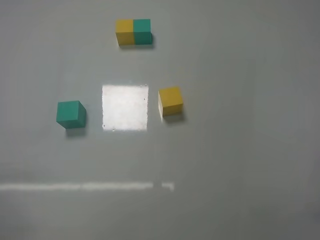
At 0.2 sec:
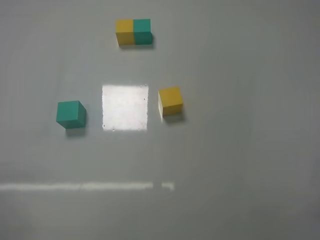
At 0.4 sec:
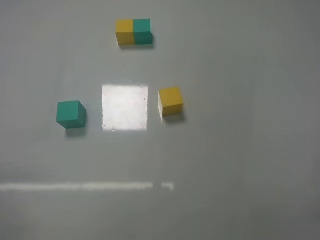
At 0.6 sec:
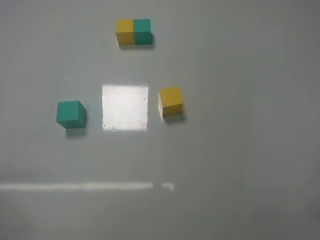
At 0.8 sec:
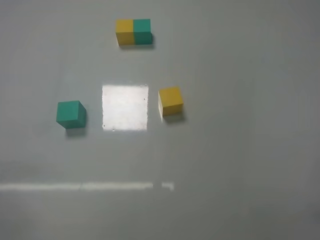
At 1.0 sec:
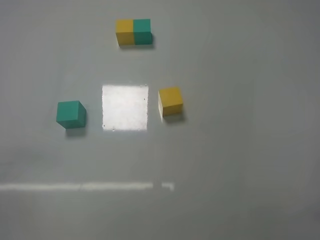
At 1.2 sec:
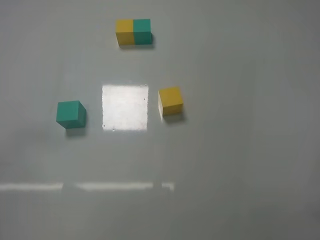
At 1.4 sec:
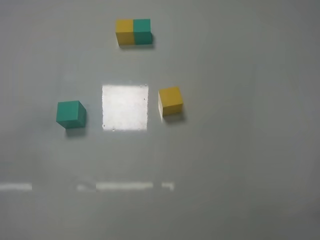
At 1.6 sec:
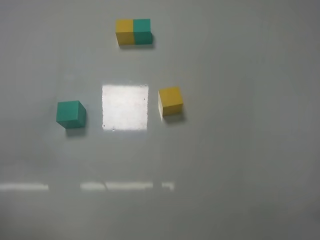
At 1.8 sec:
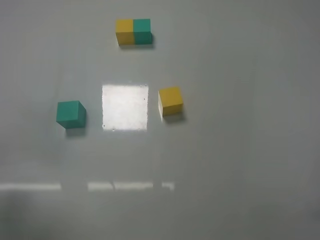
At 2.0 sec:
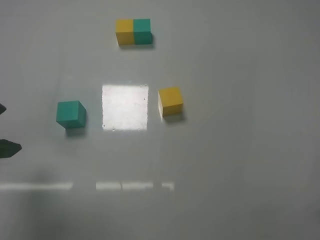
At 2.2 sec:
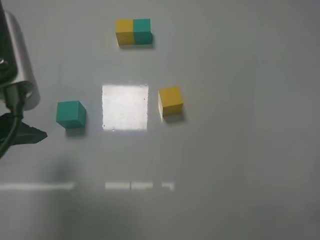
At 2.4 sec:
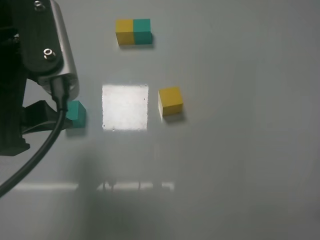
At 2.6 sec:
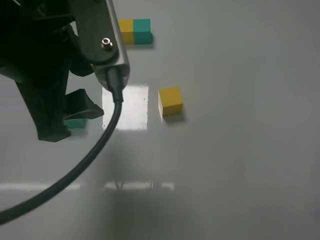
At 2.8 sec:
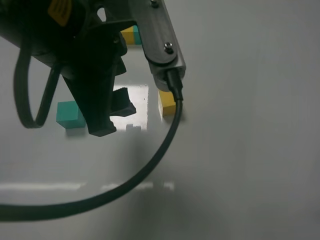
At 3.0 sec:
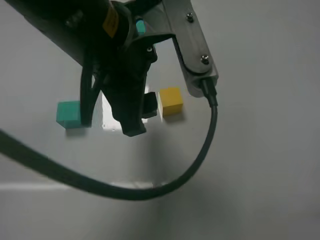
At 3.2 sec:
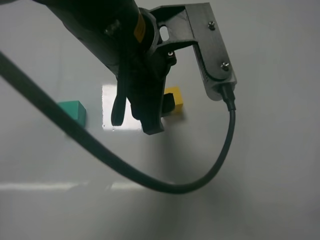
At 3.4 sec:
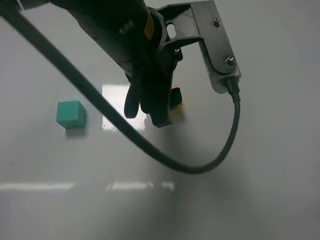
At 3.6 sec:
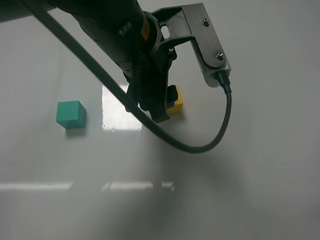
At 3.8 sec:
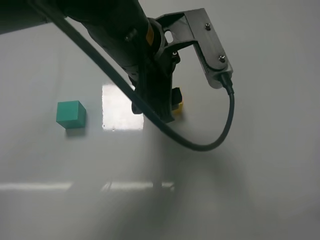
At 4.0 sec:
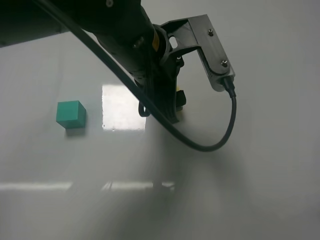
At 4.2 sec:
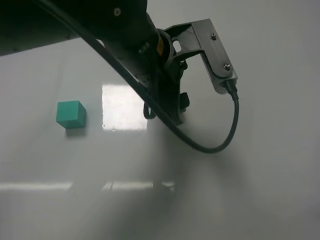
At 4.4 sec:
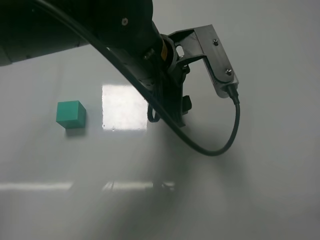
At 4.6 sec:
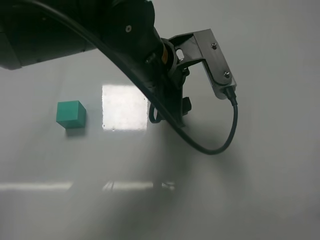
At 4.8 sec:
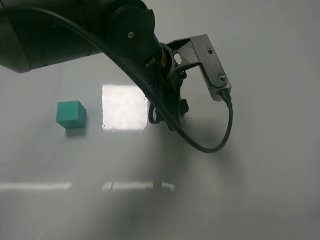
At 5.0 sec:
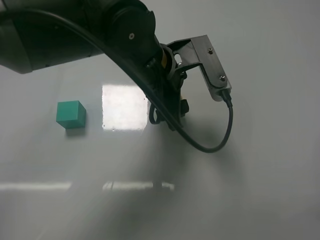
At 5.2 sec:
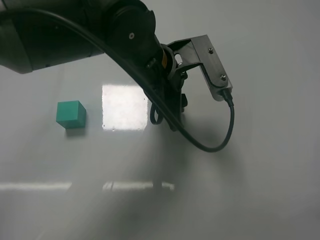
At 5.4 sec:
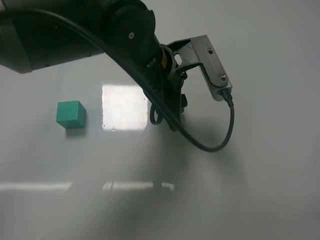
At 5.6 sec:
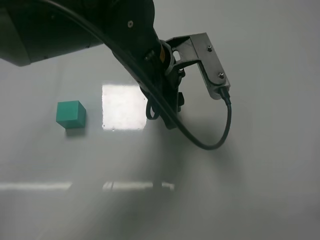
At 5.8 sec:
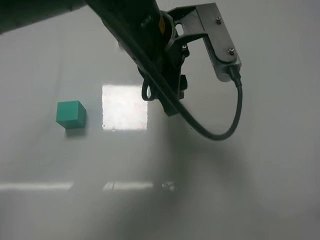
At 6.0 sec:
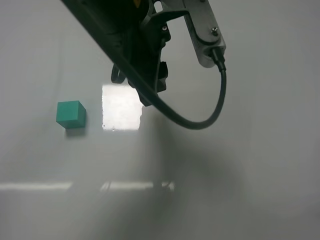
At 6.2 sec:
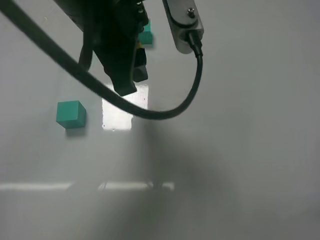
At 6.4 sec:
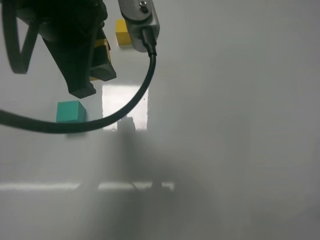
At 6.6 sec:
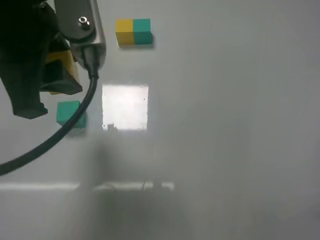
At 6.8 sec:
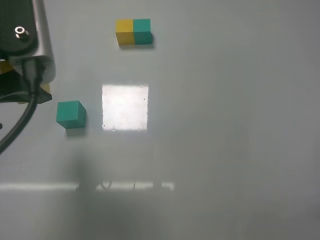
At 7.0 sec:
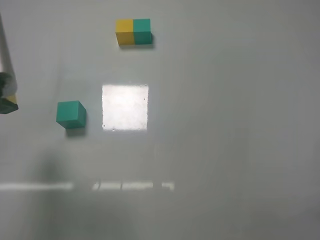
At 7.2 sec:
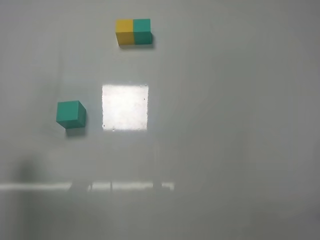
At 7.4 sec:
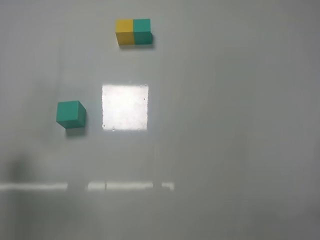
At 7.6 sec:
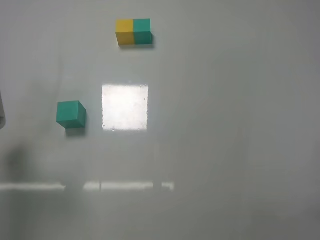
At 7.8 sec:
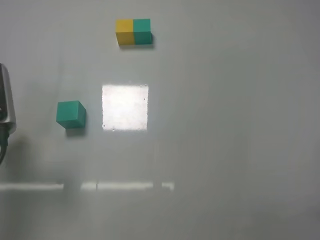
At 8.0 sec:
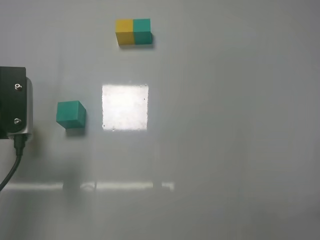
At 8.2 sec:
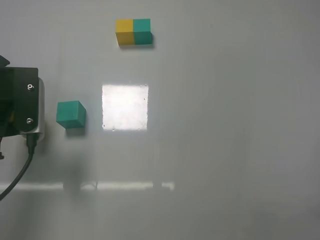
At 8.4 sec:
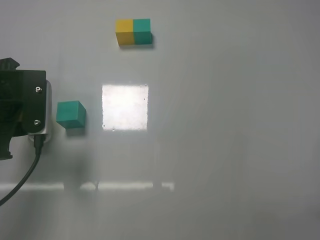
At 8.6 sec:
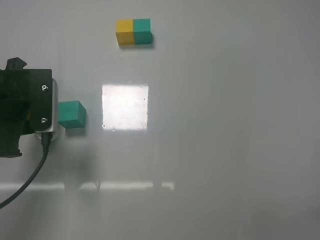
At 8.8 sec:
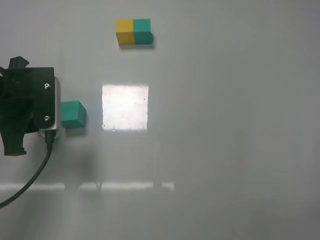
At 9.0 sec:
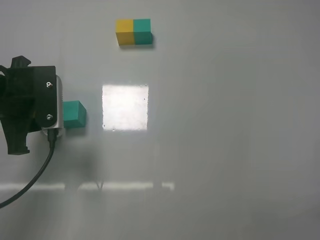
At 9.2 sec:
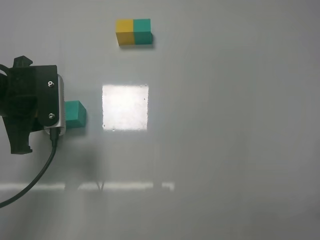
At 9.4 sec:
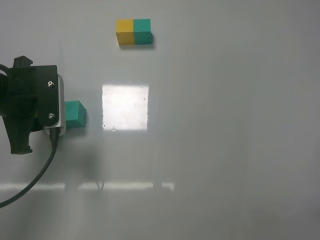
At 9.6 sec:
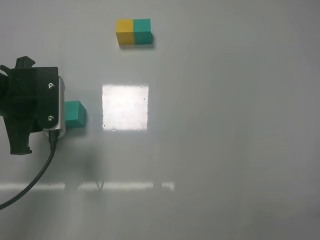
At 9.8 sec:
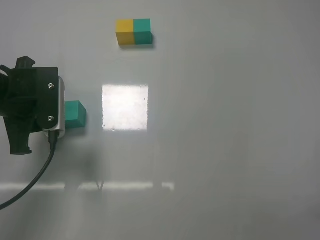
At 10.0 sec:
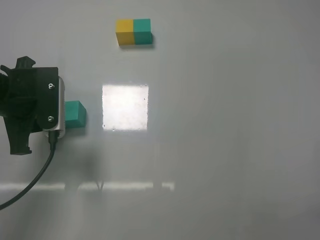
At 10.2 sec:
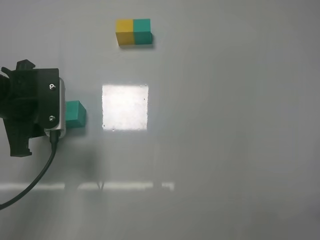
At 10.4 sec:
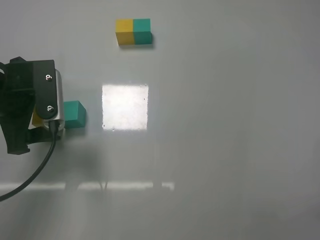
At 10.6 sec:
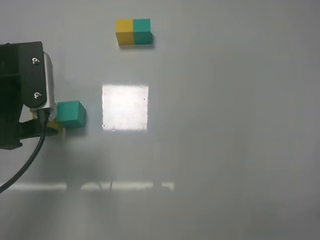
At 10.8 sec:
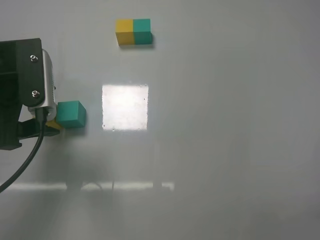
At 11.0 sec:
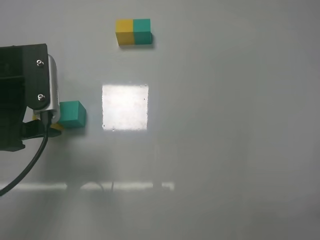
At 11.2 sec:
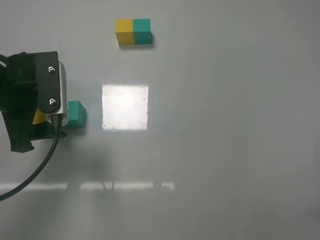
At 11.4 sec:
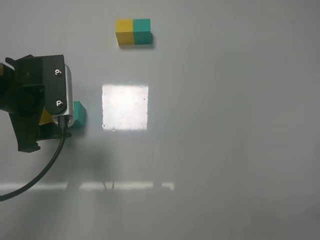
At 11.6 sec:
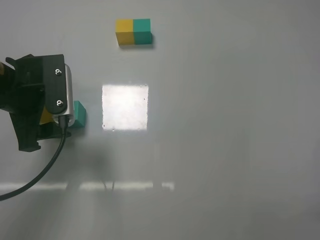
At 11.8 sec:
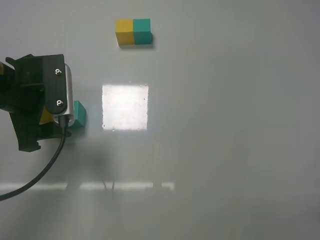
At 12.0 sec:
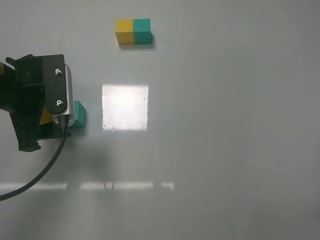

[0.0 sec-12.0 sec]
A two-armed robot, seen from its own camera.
Task of the whole recording: According to the building block template in front, assemble the scattered blocks together.
Step, 0.0 sec to 5.2 sec: Grasp the yellow block with left gripper.
Step, 5.4 sec to 10.2 sec: Put the yellow cube on the left of the green cube with the left gripper.
1.6 sec to 3.0 sec: The left gripper moves to the right and forward, approximately 25 cm.
3.0 sec to 4.4 sec: The left gripper shifts about 5 cm forward.
4.4 sec to 6.0 sec: The left gripper moves upward, about 5 cm, and closes up.
6.0 sec to 7.6 sec: The left gripper moves to the left, approximately 20 cm.
7.6 sec to 9.0 sec: The left gripper goes about 5 cm forward.
9.0 sec to 10.4 sec: The left gripper opens its fingers.
10.4 sec to 12.0 sec: The grippers stay close to where they were, moving slightly.

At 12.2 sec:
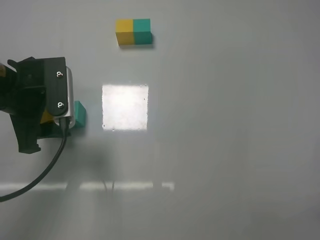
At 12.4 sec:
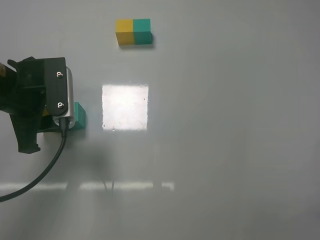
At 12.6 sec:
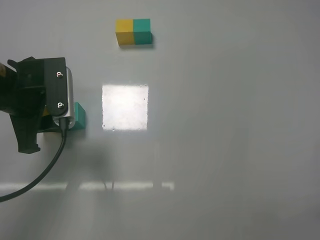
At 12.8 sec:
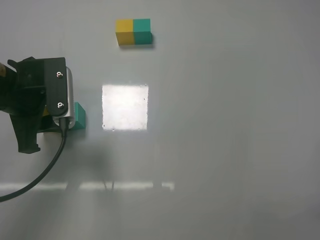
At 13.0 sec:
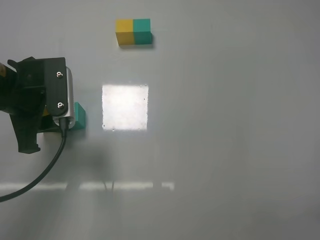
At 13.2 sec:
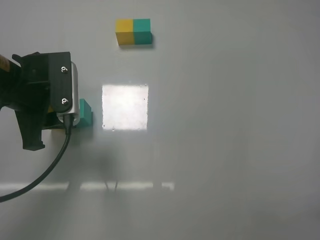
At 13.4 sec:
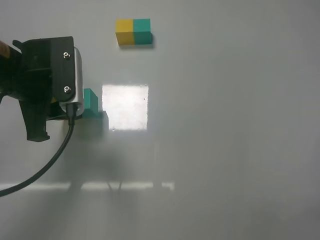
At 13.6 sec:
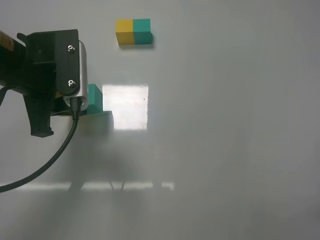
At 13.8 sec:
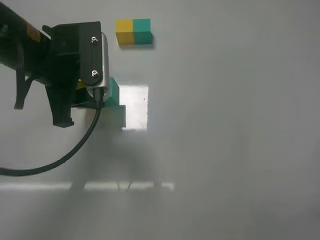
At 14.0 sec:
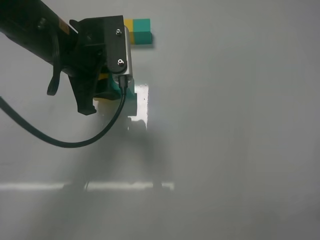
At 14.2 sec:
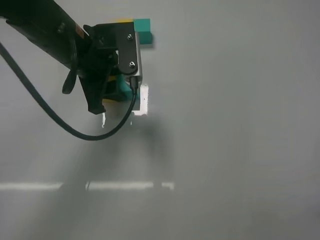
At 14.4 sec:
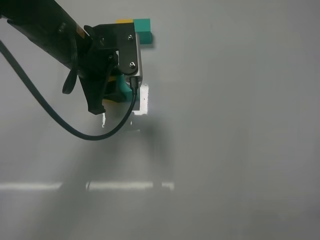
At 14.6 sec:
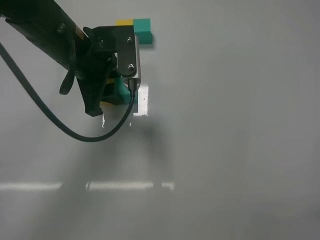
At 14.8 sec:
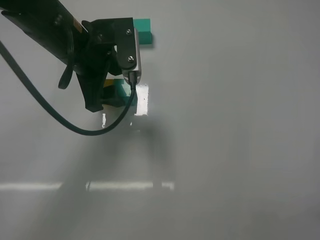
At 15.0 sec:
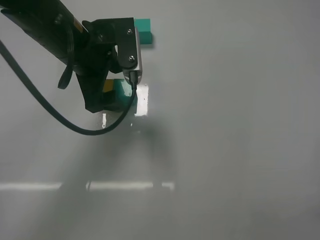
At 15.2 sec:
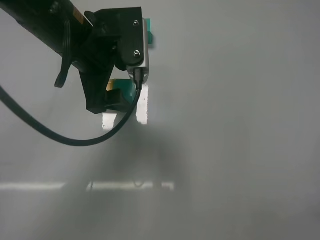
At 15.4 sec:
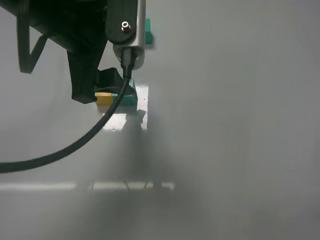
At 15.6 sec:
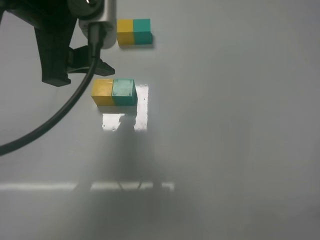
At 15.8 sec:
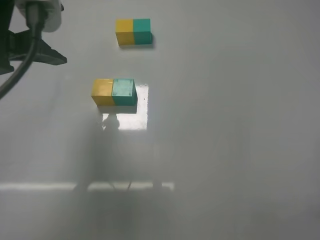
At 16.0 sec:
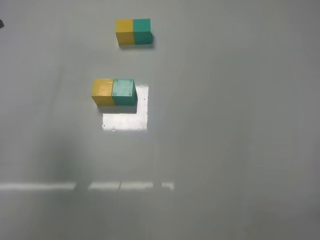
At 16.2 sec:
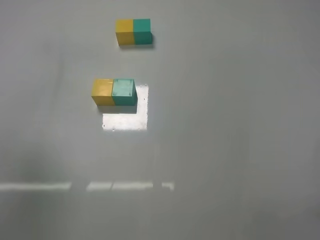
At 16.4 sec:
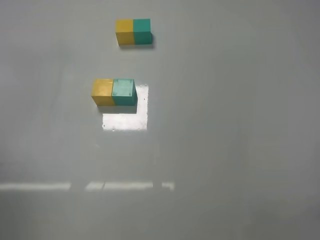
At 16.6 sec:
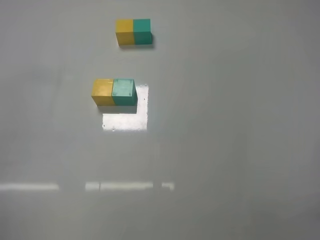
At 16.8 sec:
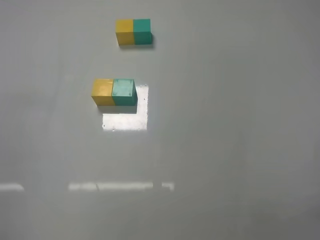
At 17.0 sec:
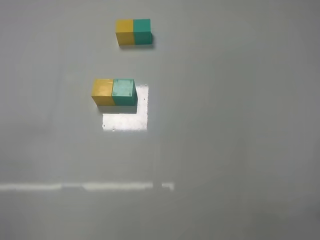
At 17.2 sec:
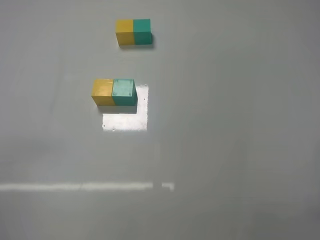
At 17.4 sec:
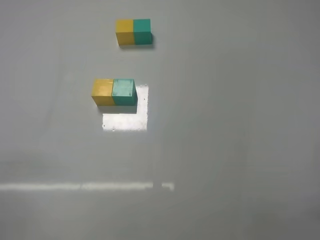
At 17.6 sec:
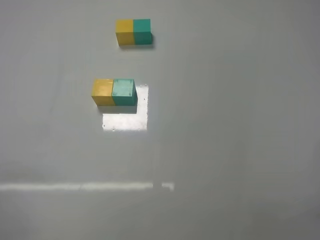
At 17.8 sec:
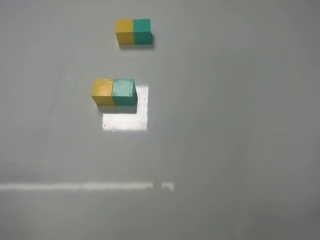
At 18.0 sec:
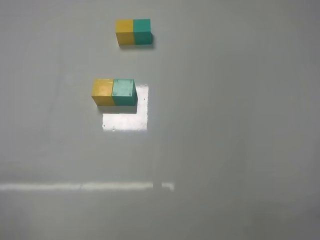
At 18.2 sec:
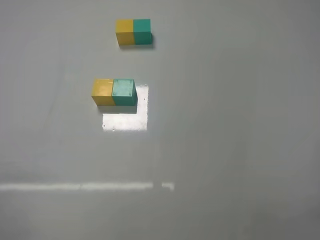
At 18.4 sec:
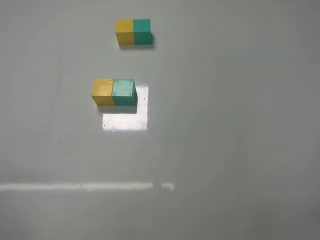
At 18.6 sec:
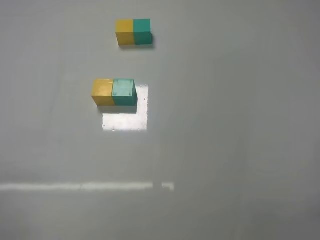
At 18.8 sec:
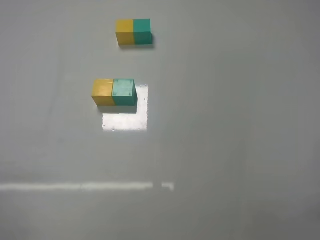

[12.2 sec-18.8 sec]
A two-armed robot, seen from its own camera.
Task of the whole recording: According to the building block template in front, assemble the scattered blocks together.
Step, 12.2 sec to 14.8 sec: Put the yellow cube and green cube in the center of the table with the left gripper.
12.2 sec to 13.8 sec: The left gripper travels to the right by approximately 5 cm, and closes.
13.8 sec to 15.4 sec: The left gripper shifts about 5 cm upward, and opens up.
15.4 sec to 17.2 sec: The left gripper shifts about 35 cm backward, to the left and downward.
